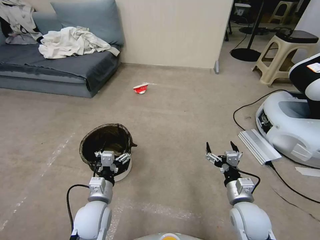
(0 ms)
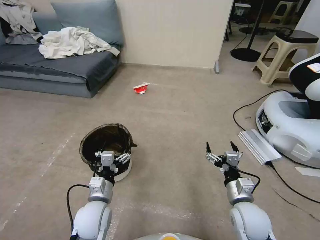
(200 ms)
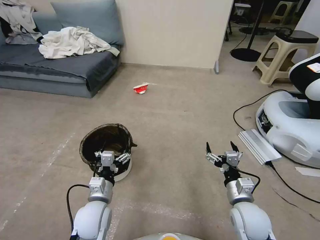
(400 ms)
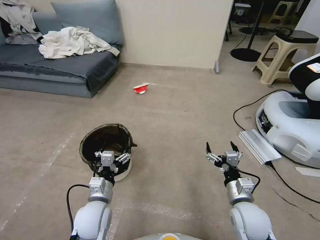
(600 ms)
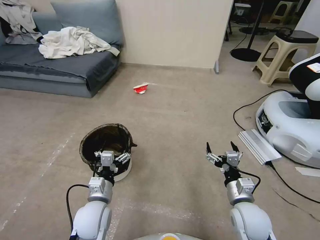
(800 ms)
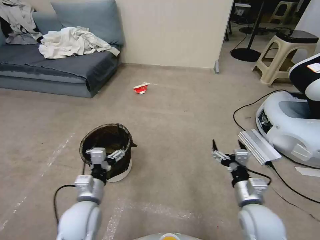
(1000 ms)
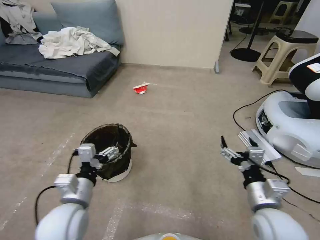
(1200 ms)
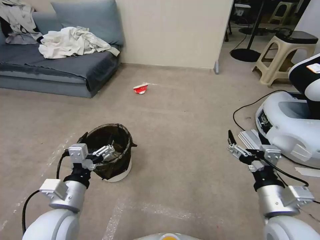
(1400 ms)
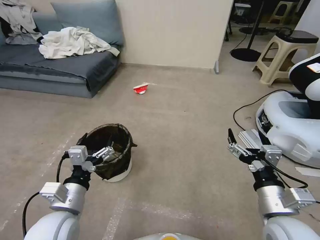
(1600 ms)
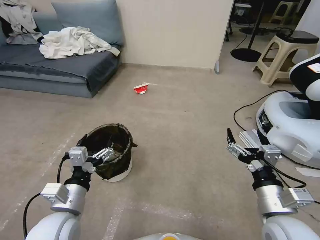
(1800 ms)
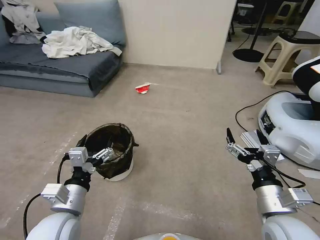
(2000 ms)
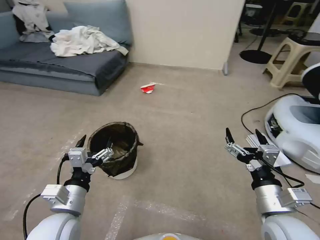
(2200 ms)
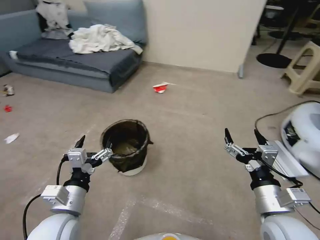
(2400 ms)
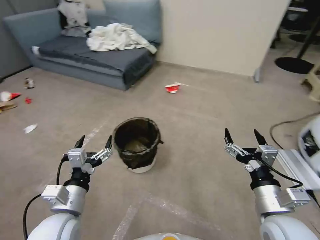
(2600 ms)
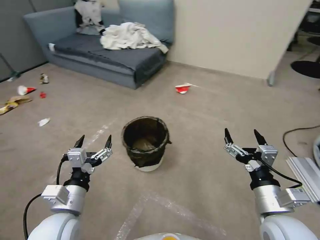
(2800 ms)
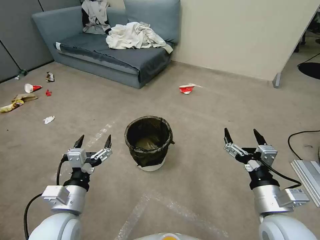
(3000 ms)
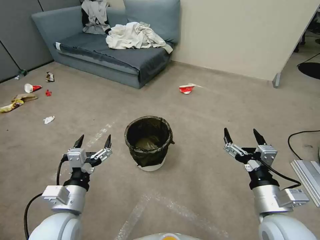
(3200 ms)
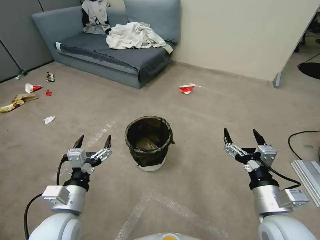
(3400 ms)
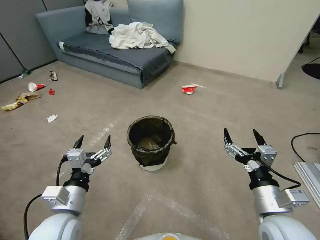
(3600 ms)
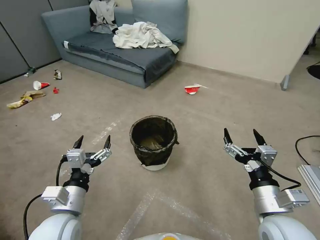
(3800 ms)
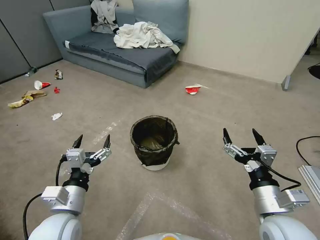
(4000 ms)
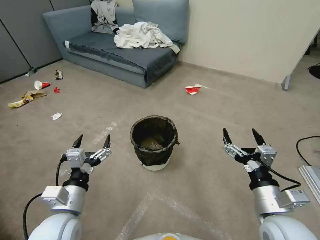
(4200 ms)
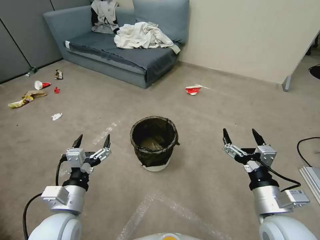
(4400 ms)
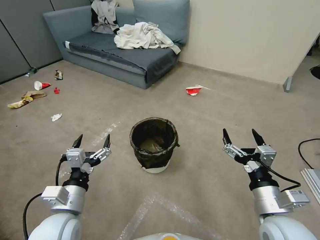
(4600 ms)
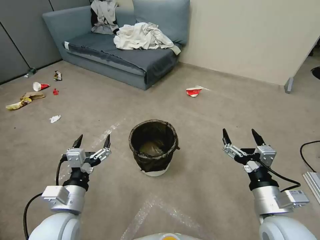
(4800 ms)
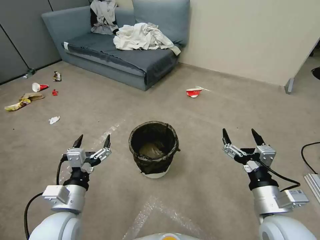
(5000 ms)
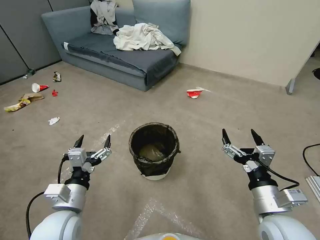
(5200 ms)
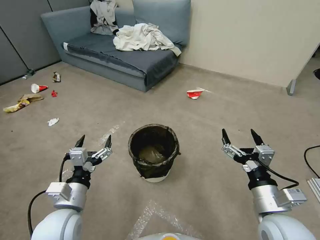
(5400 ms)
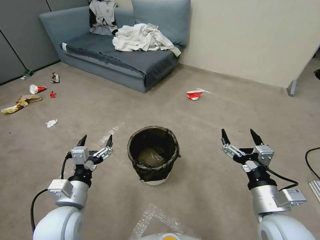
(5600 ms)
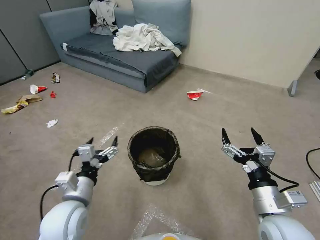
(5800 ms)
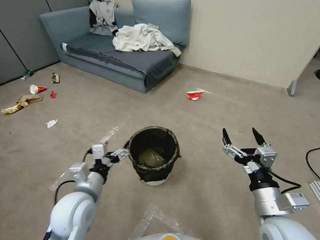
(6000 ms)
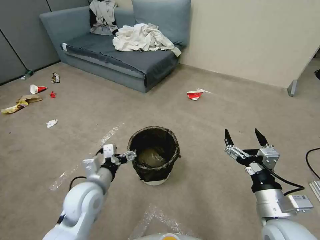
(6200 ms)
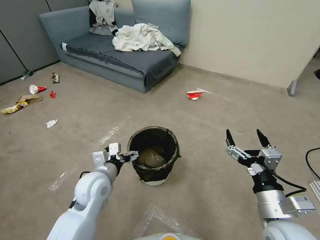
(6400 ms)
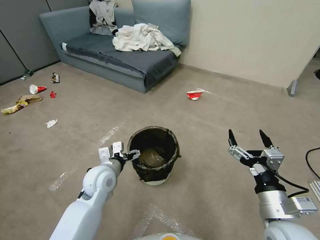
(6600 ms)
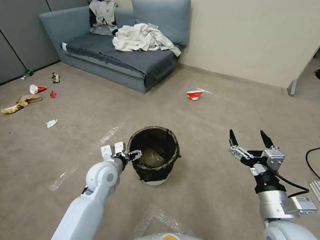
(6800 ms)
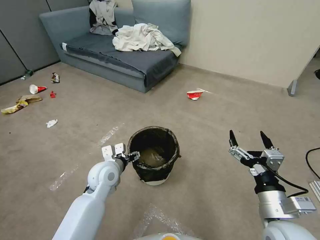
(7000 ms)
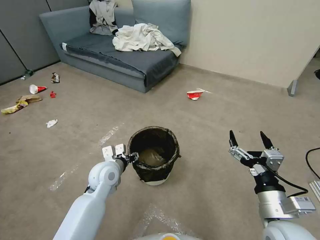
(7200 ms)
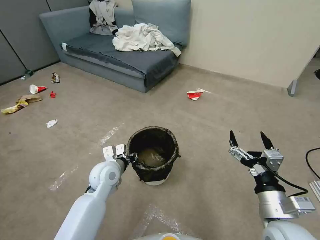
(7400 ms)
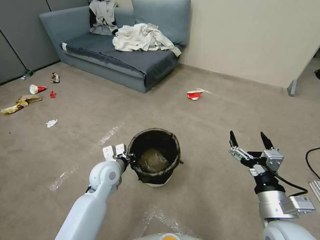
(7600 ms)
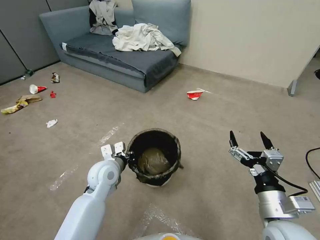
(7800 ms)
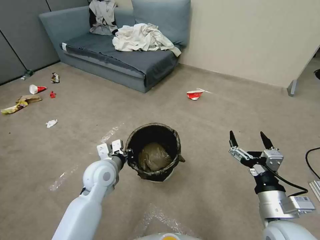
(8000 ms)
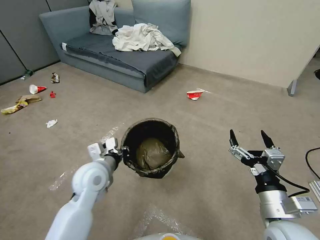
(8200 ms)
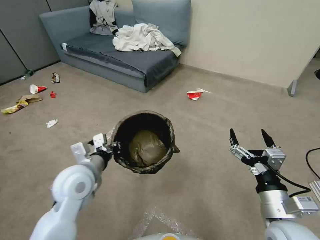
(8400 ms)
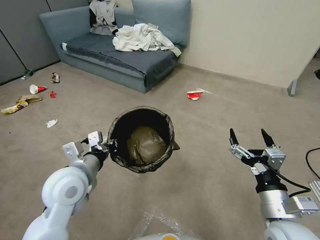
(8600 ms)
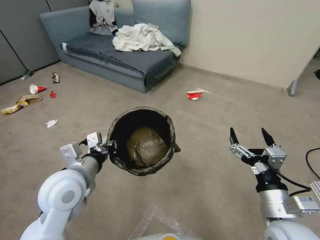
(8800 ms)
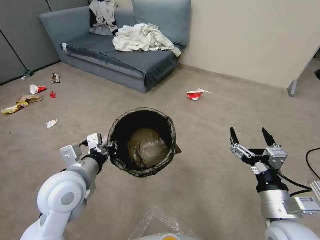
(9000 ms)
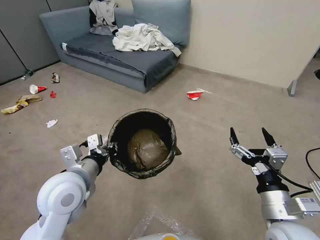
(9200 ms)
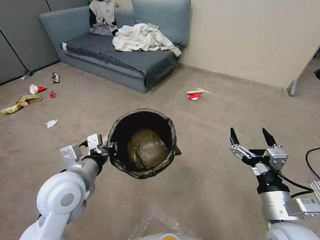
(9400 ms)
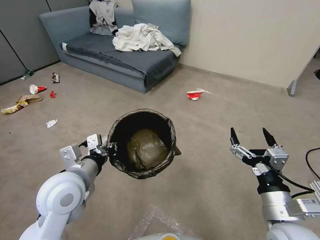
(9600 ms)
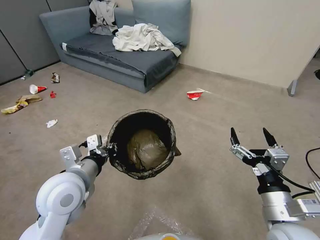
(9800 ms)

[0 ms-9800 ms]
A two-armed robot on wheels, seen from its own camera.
Task of the whole recording: Pick up the trash can from the floor.
2800 ms to 4200 ms: Both grippers stay about where they are.
4200 ms to 5600 ms: The grippers stay close to where they were, moving slightly.
5600 ms to 7000 ms: The left gripper moves forward, about 15 cm.
7000 ms to 8400 ms: The left gripper is displaced upward and backward by some 10 cm, and closes up.
8400 ms to 9800 ms: There are only small adjustments of the grippers.
